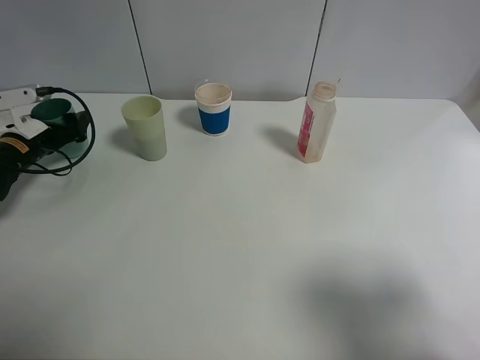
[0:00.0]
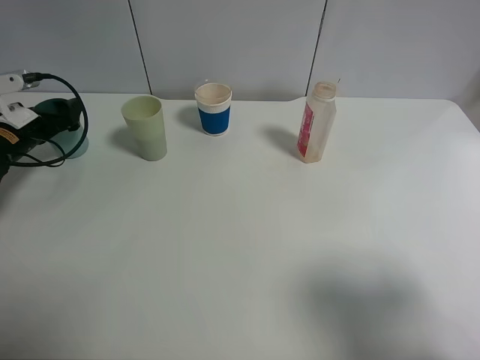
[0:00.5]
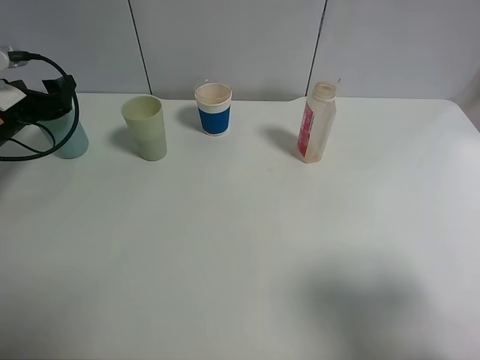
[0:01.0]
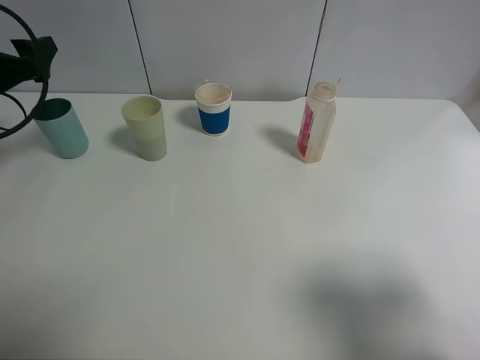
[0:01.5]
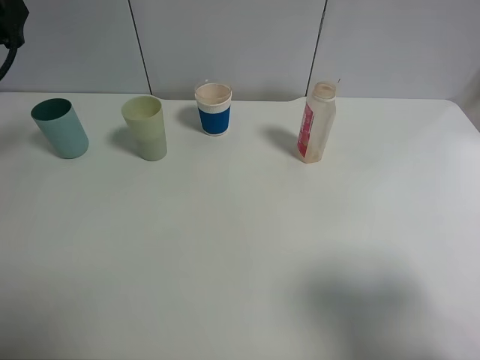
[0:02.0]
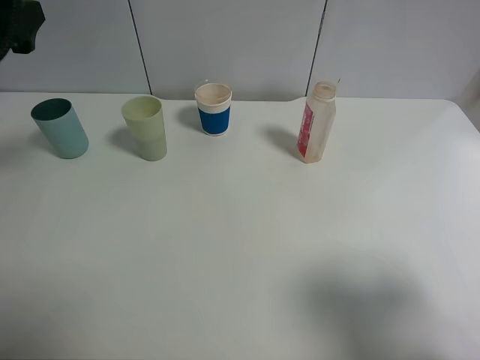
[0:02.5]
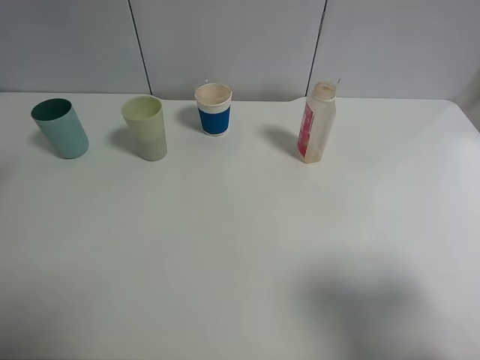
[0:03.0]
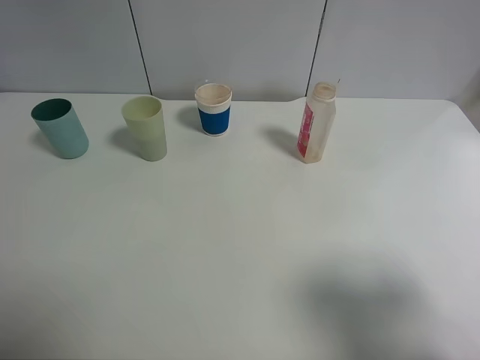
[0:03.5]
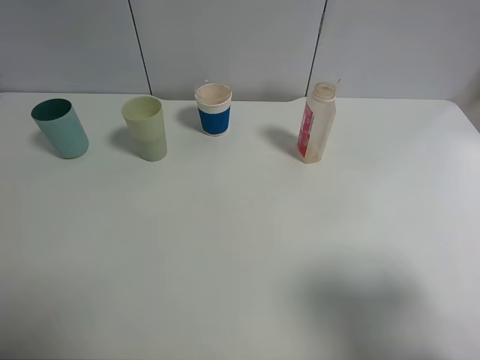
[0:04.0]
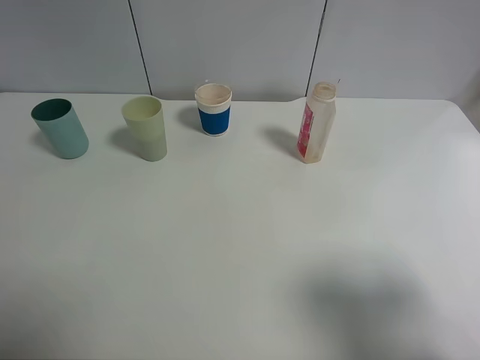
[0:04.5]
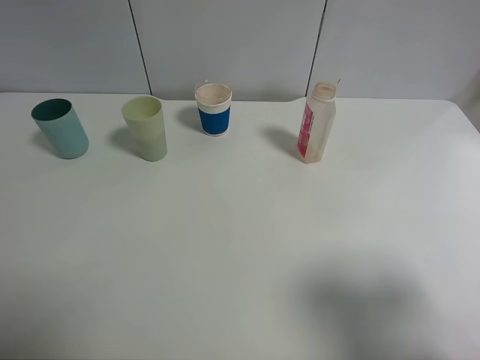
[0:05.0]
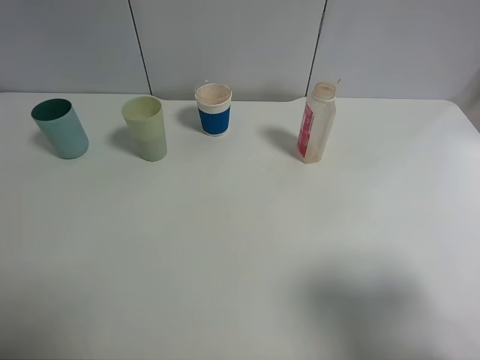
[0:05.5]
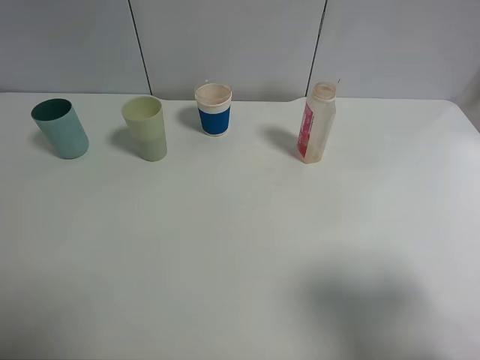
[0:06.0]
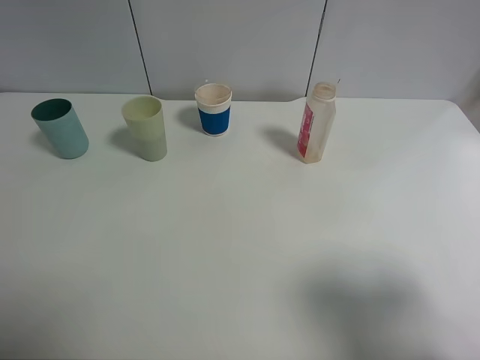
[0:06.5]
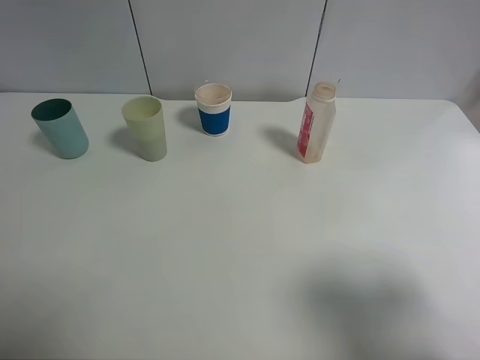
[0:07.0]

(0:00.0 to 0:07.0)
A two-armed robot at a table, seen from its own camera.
Task of the whole recording: use a clamp to hold the bottle of the drink, pour the beverage into a random cup, then clamp the cup containing the drink and pour the drink into another random cup.
0:00.0 - 0:02.0: The left gripper moves upward, some 20 cm.
0:02.0 - 0:03.5: The left gripper is displaced backward by approximately 20 cm.
